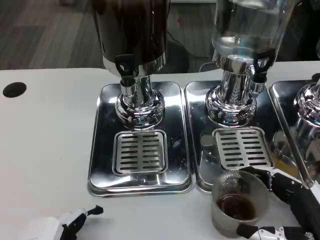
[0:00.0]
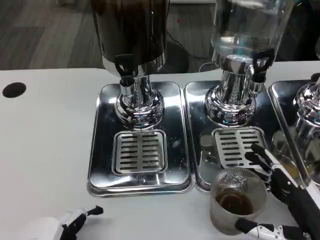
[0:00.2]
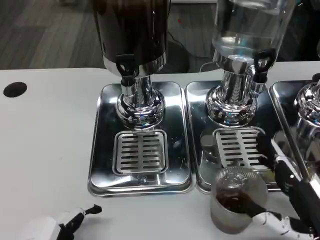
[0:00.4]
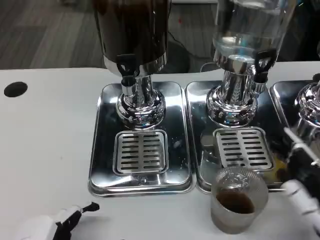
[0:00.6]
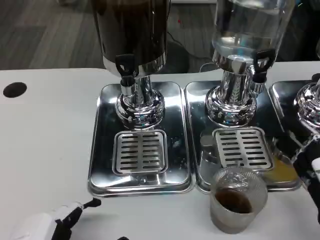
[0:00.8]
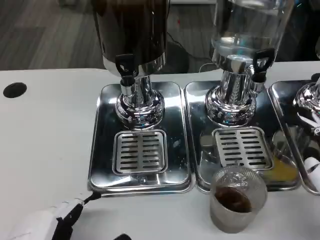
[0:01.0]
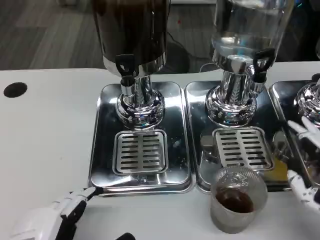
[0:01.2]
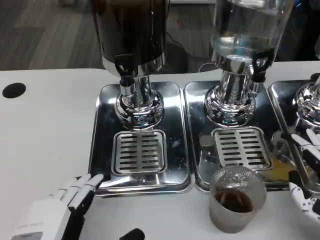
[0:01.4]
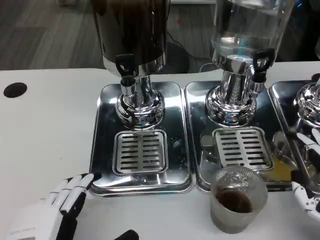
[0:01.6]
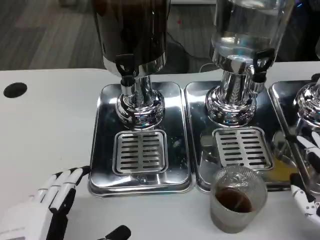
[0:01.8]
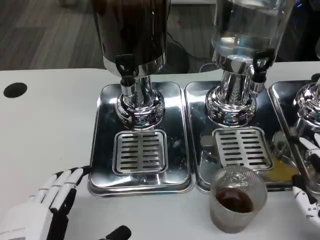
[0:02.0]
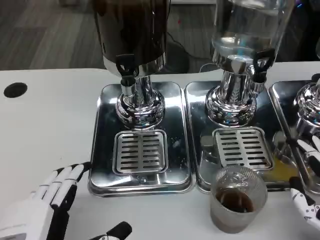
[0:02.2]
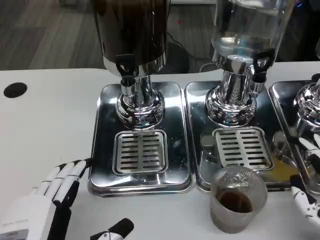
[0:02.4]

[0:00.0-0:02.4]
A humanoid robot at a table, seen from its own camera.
Task of the whole recording: Grasp the cup under the faucet to collect the drink, then remove the cup.
0:00.0 to 0:01.2: The right hand shifts some 10 cm upward.
0:01.2 to 0:02.4: There are only small adjustments of the hands.

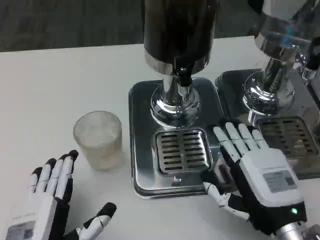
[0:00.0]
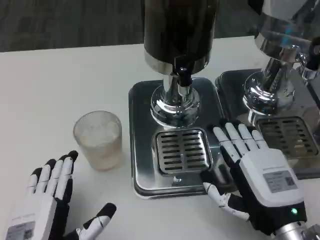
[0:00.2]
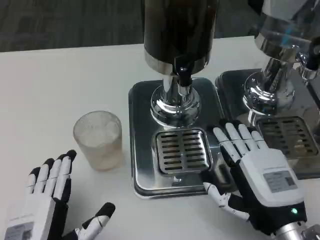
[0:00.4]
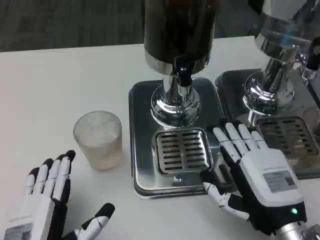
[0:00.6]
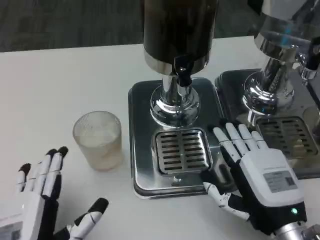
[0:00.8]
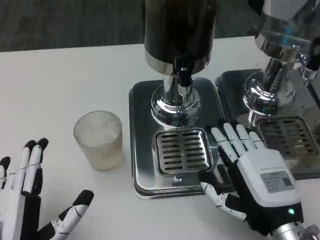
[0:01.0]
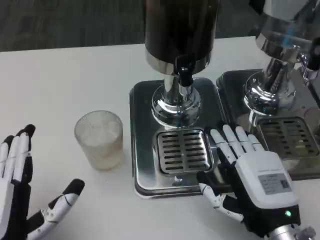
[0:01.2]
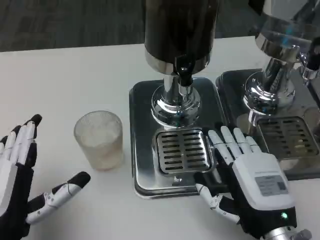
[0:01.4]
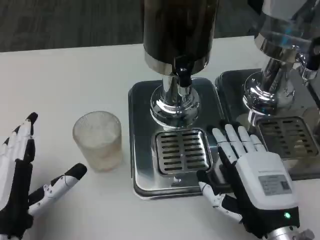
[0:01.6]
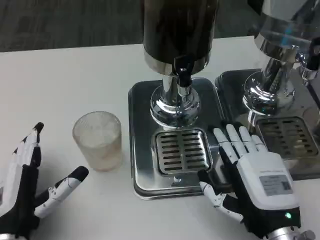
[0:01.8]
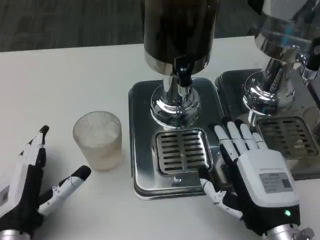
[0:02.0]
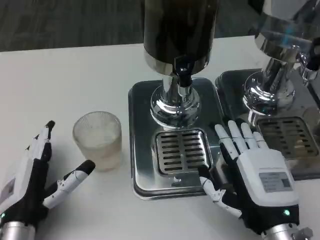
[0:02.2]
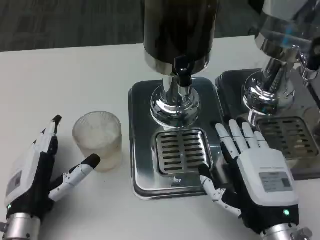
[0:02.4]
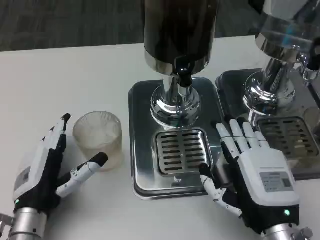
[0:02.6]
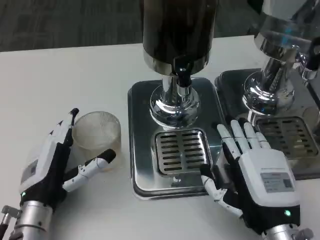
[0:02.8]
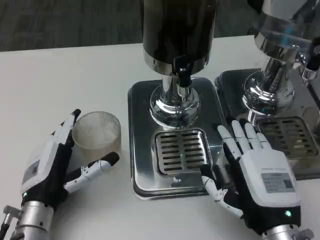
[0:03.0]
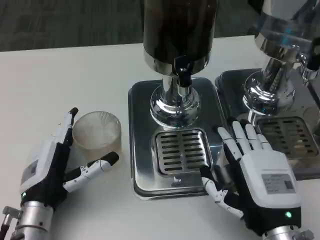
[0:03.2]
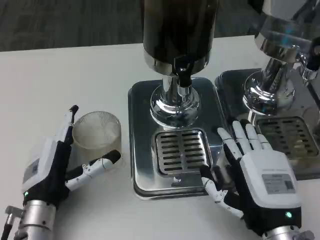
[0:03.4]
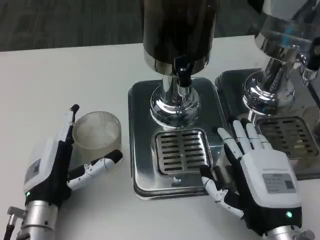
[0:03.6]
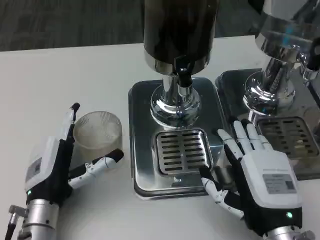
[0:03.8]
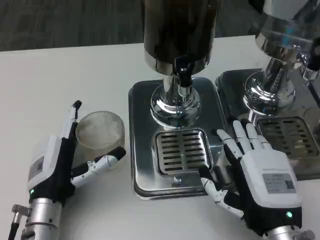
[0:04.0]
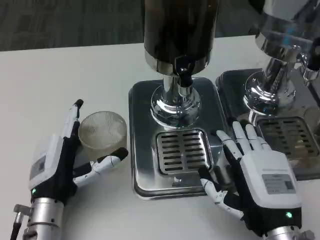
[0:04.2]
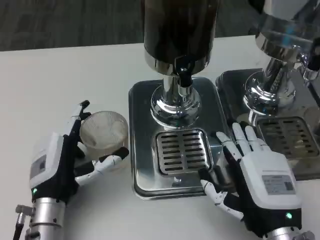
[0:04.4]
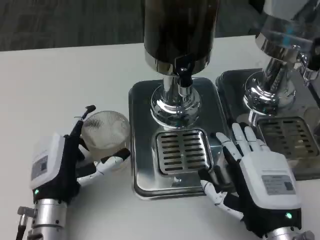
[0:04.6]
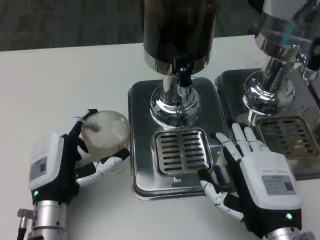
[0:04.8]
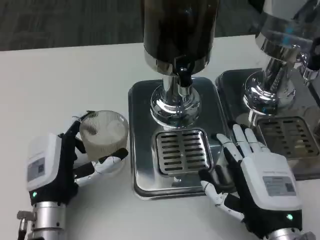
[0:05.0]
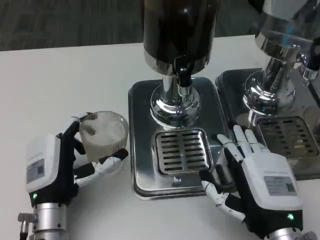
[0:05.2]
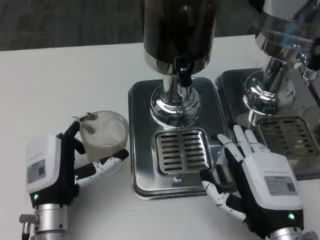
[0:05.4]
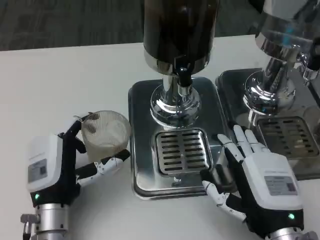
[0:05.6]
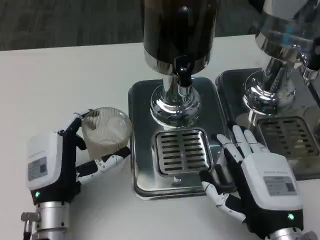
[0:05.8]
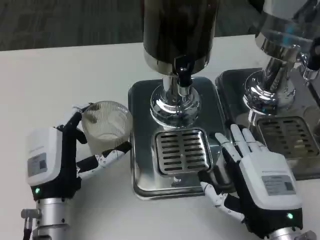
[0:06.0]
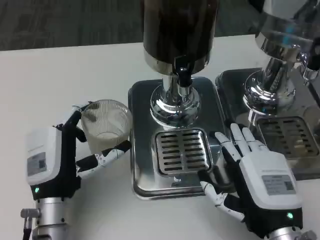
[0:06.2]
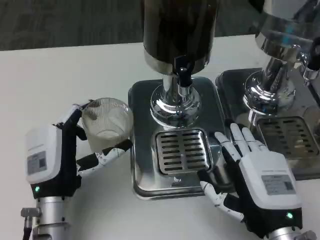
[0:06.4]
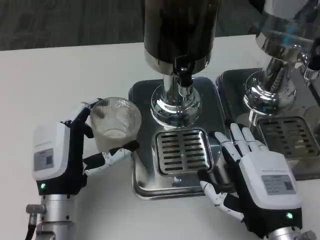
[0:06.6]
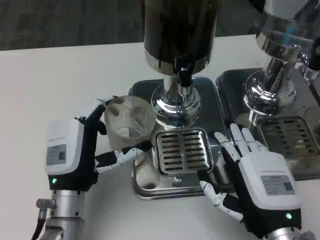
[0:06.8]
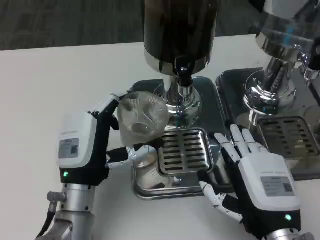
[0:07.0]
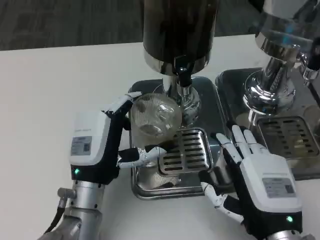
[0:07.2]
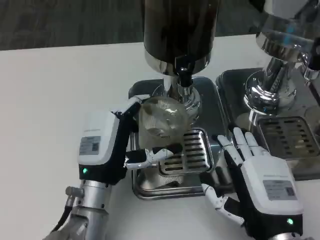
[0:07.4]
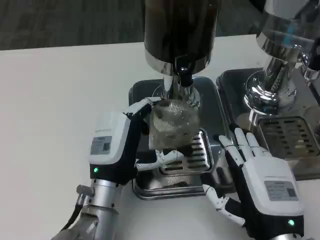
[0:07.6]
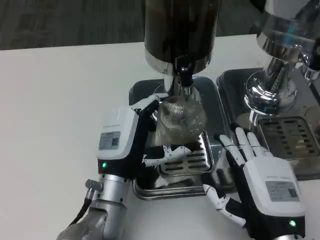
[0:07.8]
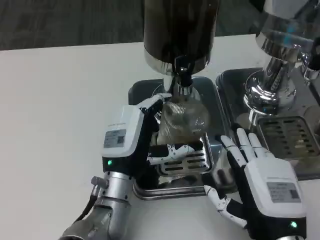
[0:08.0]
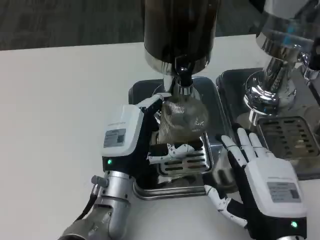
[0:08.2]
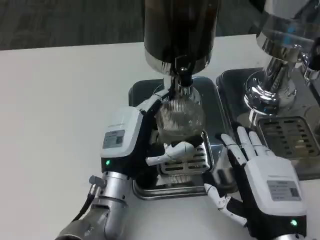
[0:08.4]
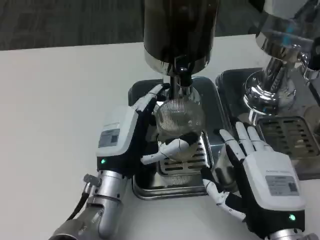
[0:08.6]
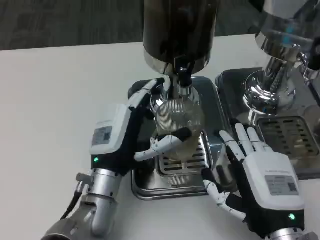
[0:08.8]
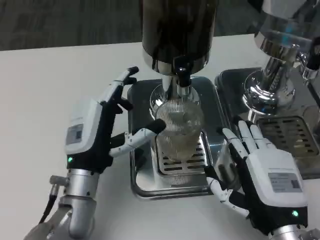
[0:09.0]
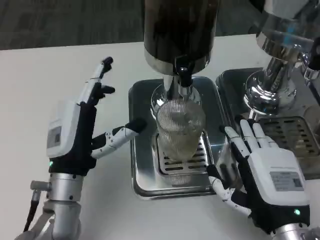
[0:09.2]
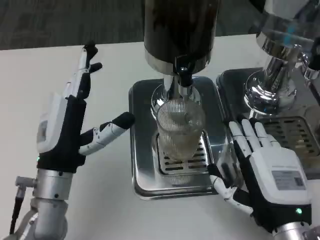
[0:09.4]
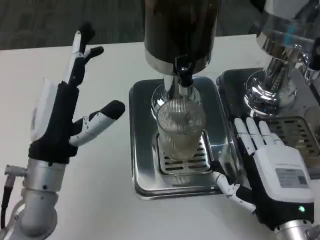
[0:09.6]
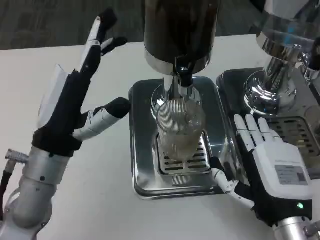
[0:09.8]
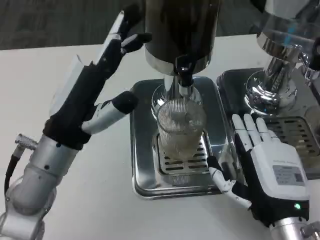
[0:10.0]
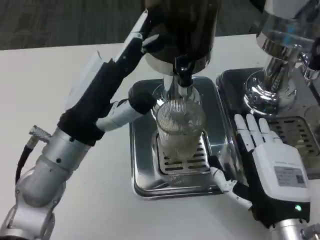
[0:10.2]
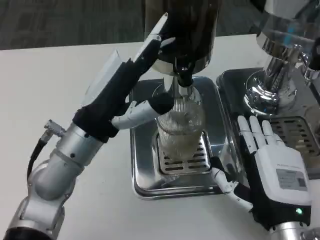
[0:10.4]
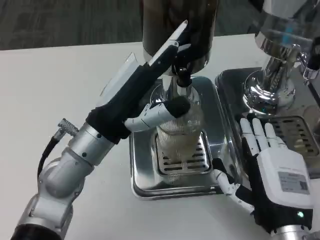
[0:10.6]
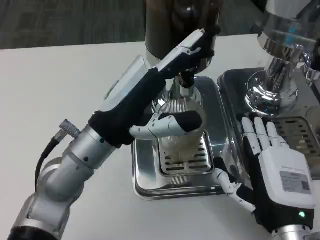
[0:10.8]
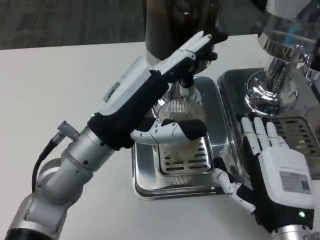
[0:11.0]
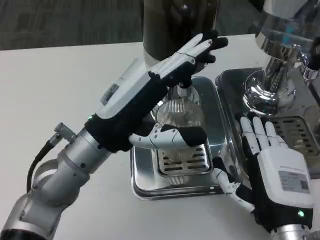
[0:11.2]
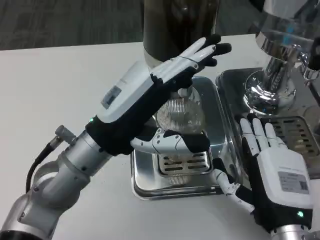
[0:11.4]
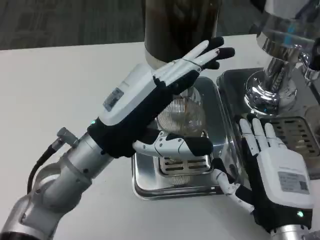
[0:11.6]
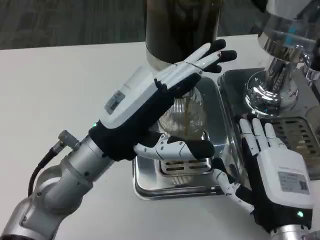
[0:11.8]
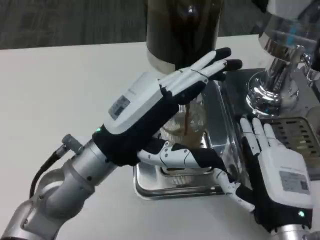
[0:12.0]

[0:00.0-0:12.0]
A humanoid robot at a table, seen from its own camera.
Task of the whole recording: Grasp the cup under the faucet to collect the drink, then remove the cup.
0:00.0 to 0:01.6: The left hand is displaced forward by about 5 cm.
0:01.6 to 0:03.0: The left hand travels forward by roughly 5 cm.
0:03.0 to 0:04.4: The hands make only small movements.
0:04.4 to 0:06.0: The hands stay close to where they were, moving slightly.
0:06.0 to 0:07.6: The left hand shifts some 5 cm to the right.
0:09.0 to 0:10.4: The left hand moves upward, approximately 10 cm.

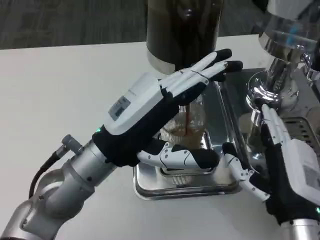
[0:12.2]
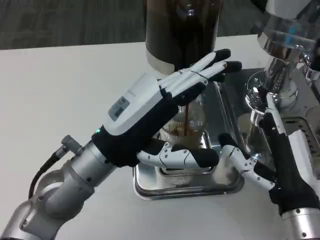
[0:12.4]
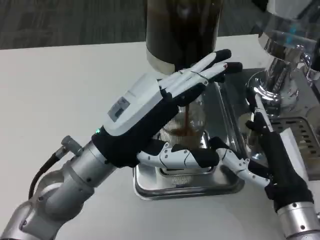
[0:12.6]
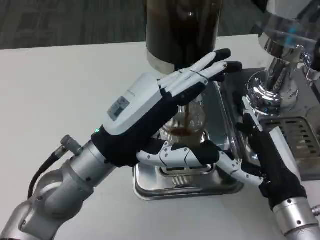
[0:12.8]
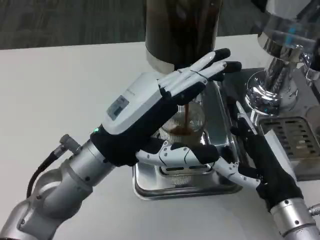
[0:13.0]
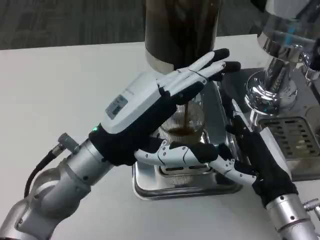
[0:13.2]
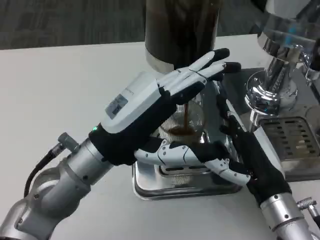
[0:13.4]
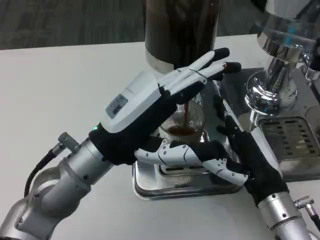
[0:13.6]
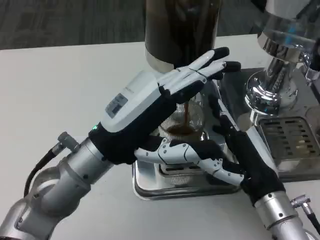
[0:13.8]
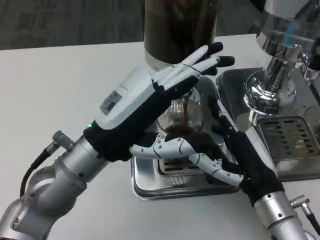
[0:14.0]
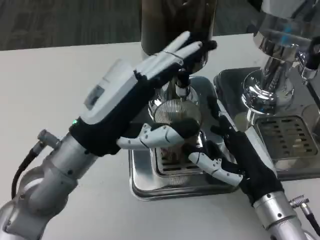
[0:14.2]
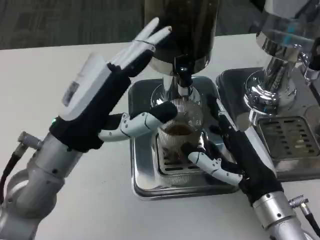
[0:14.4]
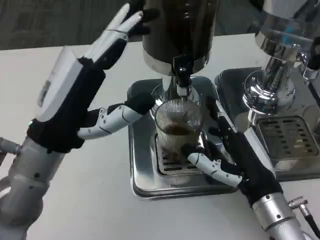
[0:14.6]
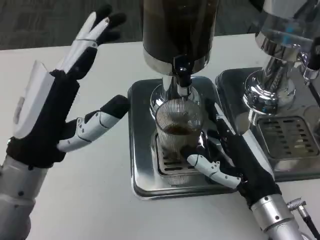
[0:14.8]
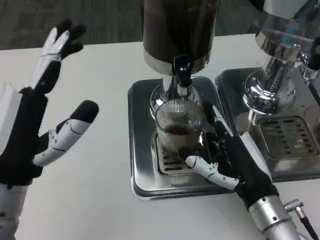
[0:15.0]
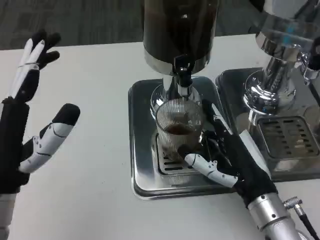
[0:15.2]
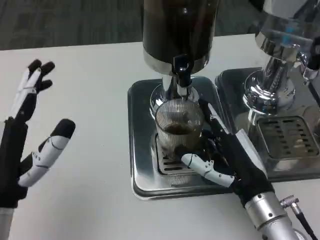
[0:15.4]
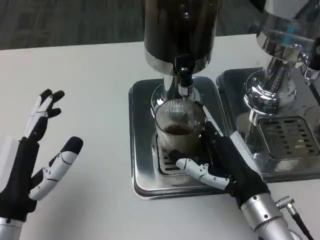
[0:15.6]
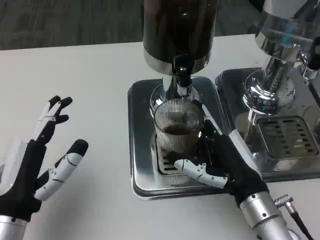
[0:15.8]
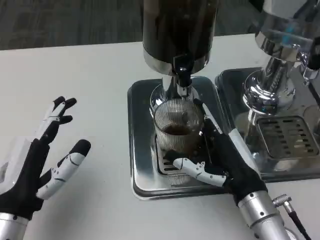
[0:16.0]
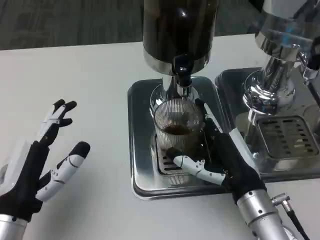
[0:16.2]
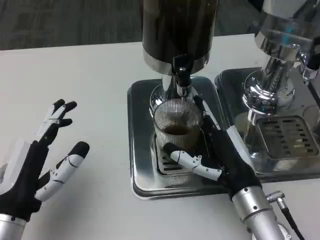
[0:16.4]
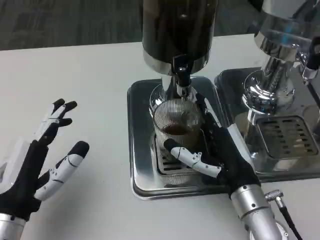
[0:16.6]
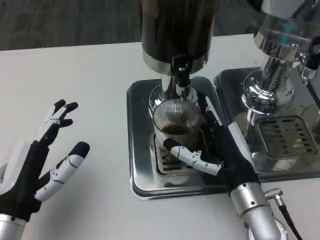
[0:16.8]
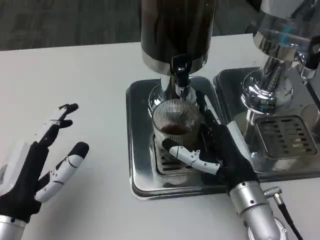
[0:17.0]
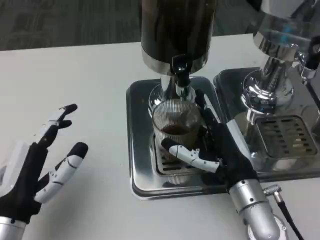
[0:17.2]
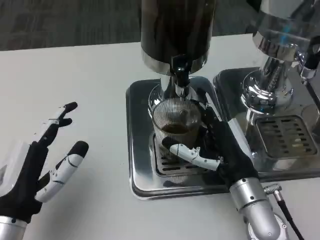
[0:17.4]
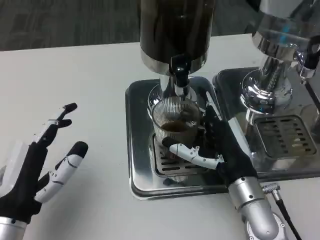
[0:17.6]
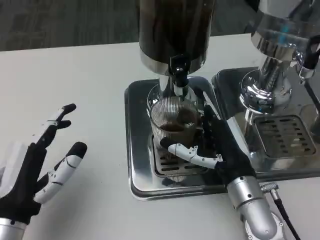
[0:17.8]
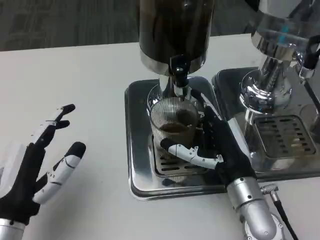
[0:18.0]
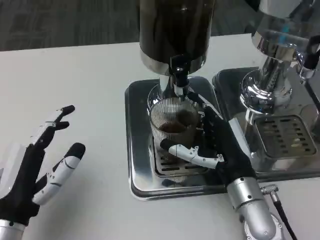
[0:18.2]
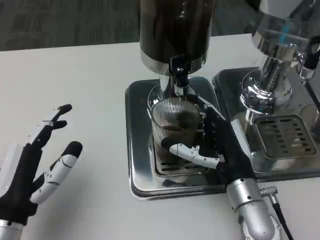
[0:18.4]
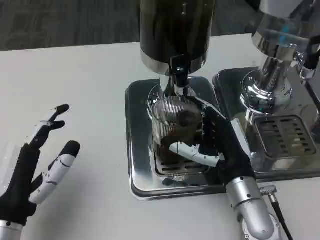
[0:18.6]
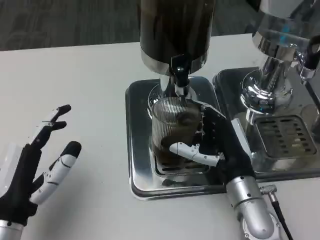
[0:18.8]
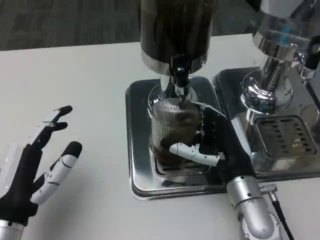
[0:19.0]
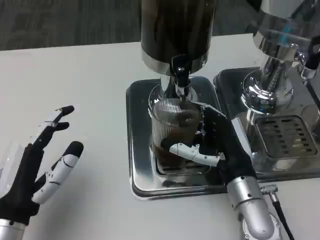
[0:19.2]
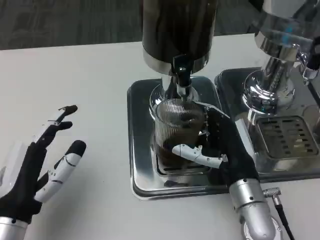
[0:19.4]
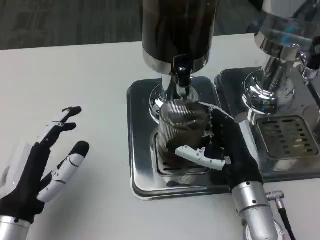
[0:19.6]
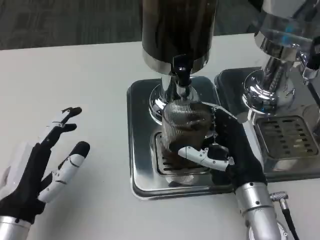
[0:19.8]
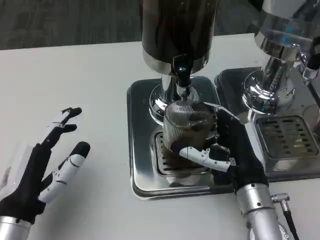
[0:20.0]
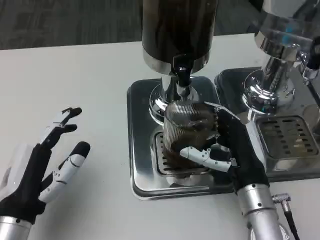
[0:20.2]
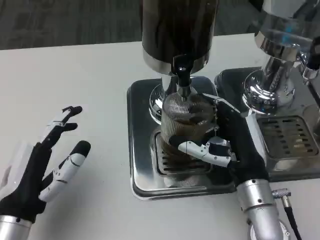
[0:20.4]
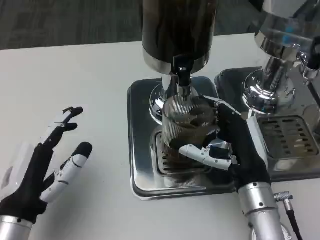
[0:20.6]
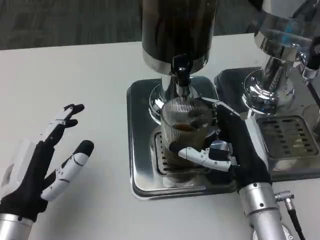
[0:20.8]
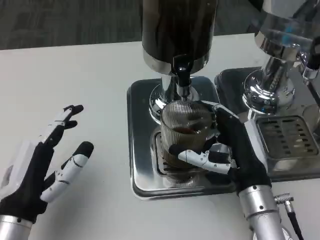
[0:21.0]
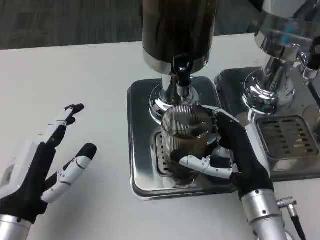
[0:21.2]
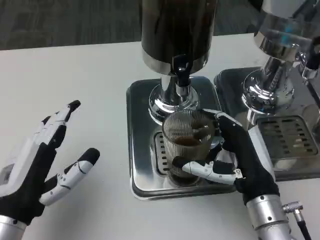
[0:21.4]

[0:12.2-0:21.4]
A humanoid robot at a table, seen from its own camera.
Task of the whole recording: Grasp the cup under the faucet to collect the drink, then remove the cup.
0:12.2 to 0:13.8: The right hand ends up some 5 cm from where it was.
0:13.8 to 0:15.2: The left hand travels to the left and backward by some 10 cm.
0:15.2 to 0:16.8: The left hand travels downward by some 5 cm.
0:16.8 to 0:18.4: The hands stay close to where they were, moving slightly.
0:19.8 to 0:21.4: There are only small adjustments of the hands.
